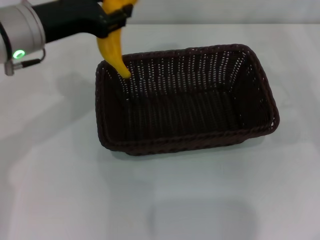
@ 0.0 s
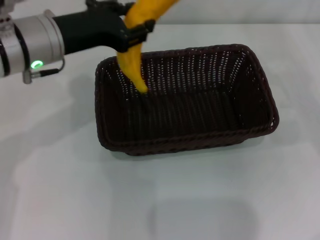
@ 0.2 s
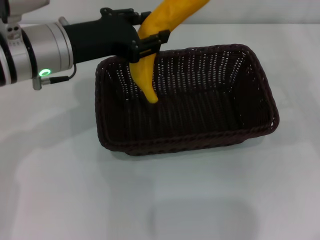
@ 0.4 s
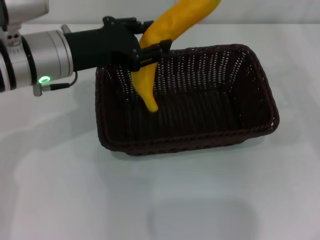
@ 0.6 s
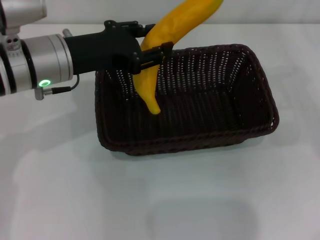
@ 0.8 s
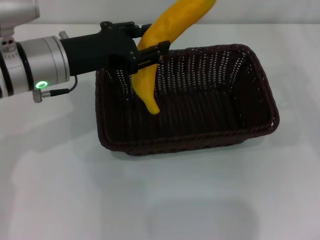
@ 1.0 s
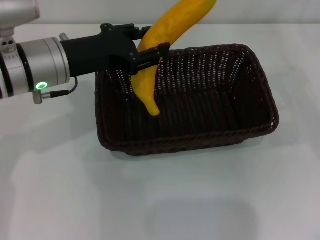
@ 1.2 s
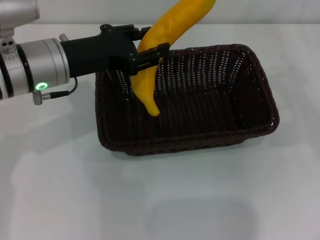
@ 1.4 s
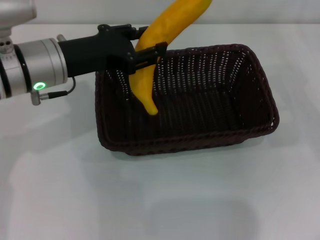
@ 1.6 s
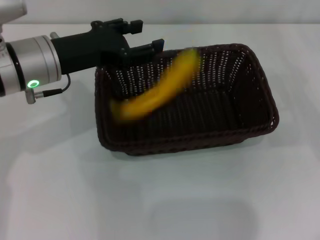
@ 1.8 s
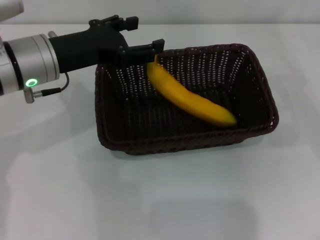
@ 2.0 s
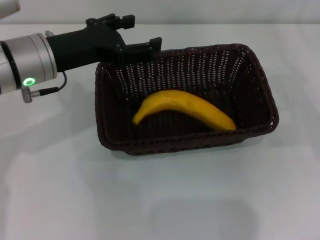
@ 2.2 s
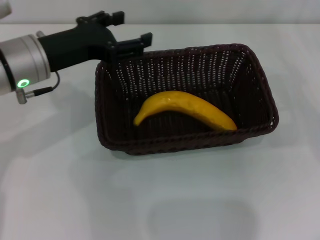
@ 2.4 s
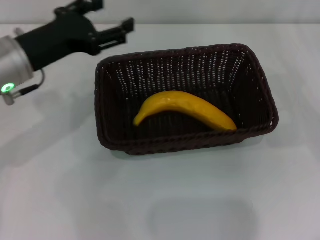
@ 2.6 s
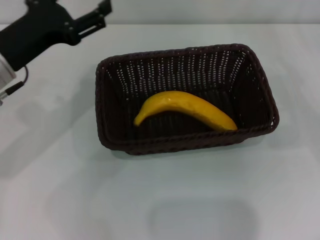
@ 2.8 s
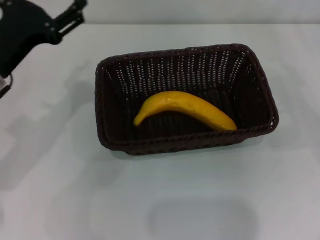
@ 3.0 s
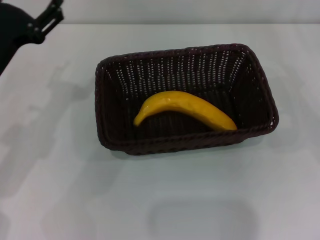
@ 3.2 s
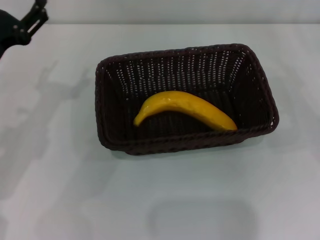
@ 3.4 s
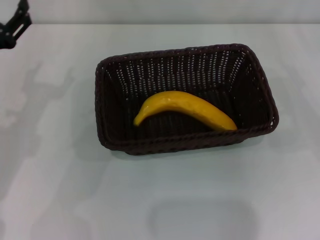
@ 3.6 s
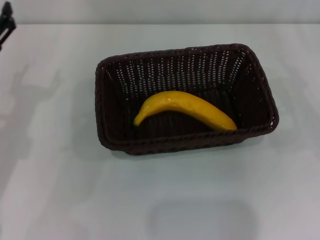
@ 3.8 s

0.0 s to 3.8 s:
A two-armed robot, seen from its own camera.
0.0 to 1.2 s: The grippers make only small movements.
1.2 to 2.6 s: The left gripper opens.
2.6 to 3.8 s: The left gripper heads to the left, covering roughly 5 cm.
